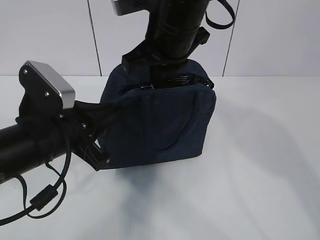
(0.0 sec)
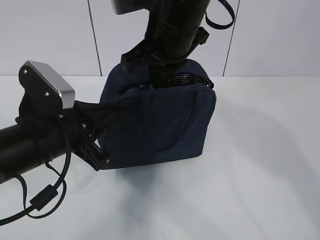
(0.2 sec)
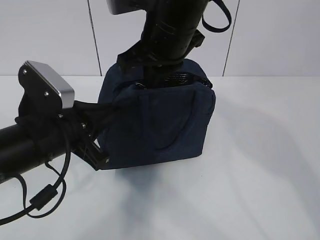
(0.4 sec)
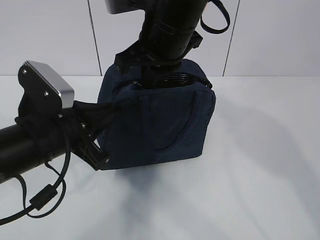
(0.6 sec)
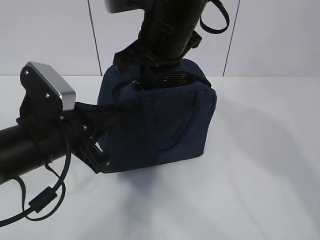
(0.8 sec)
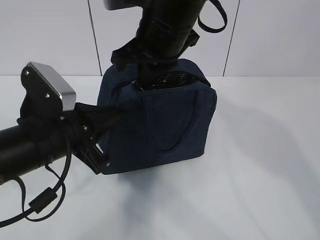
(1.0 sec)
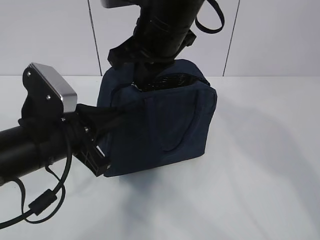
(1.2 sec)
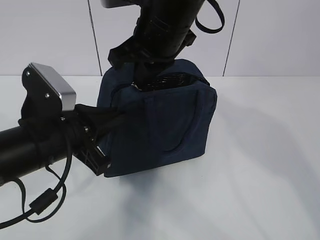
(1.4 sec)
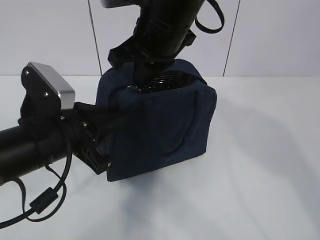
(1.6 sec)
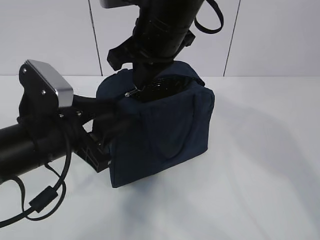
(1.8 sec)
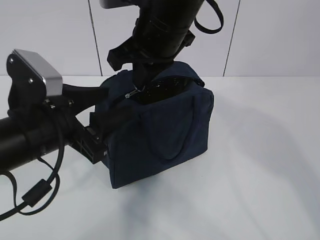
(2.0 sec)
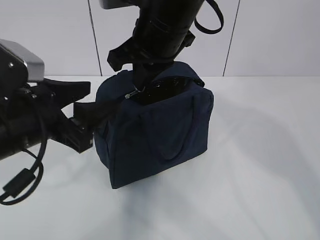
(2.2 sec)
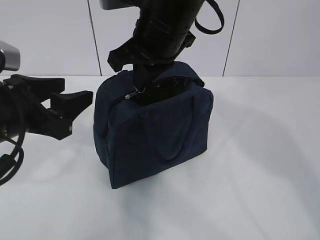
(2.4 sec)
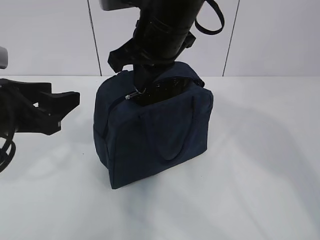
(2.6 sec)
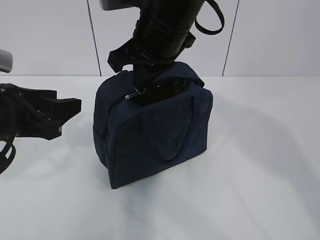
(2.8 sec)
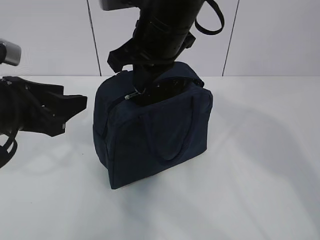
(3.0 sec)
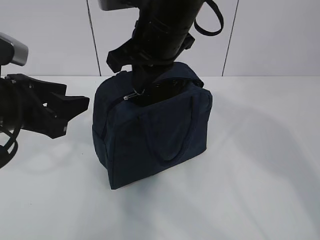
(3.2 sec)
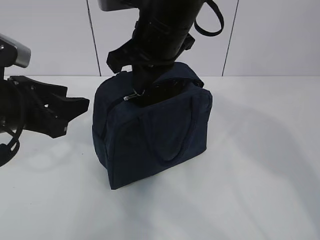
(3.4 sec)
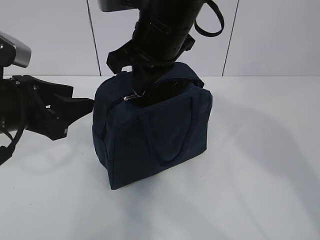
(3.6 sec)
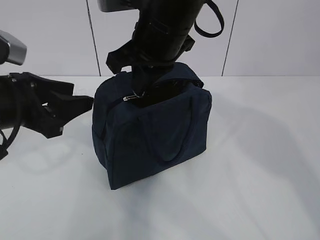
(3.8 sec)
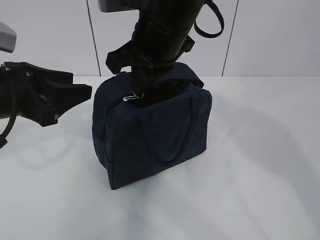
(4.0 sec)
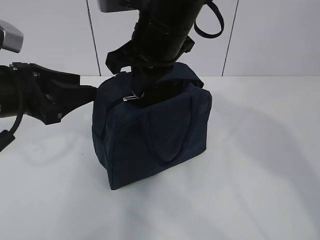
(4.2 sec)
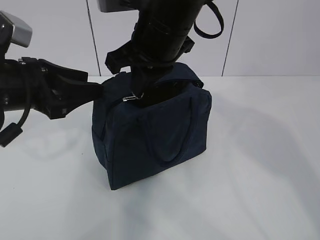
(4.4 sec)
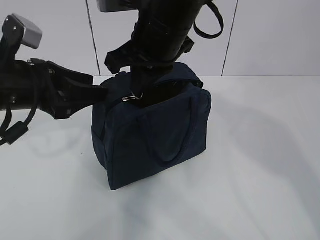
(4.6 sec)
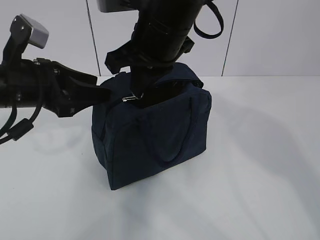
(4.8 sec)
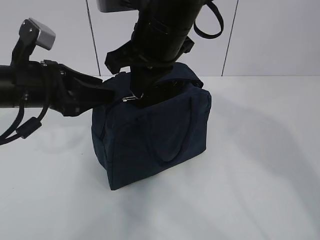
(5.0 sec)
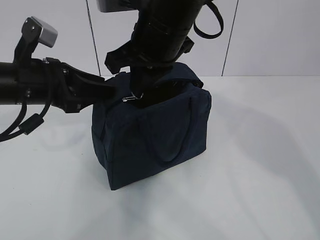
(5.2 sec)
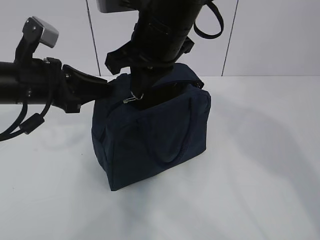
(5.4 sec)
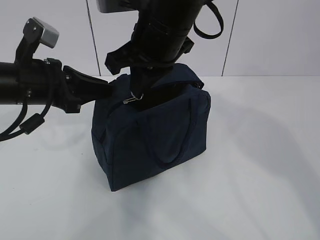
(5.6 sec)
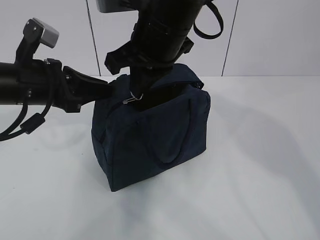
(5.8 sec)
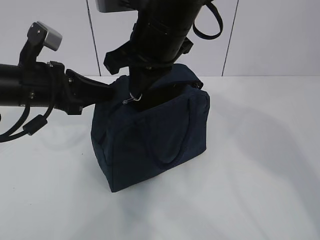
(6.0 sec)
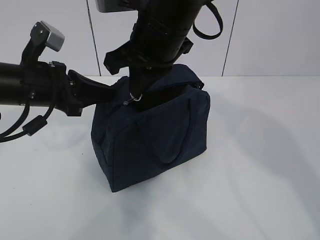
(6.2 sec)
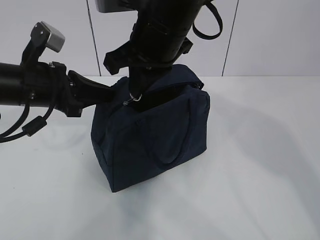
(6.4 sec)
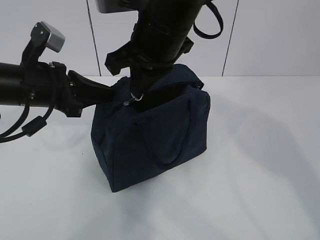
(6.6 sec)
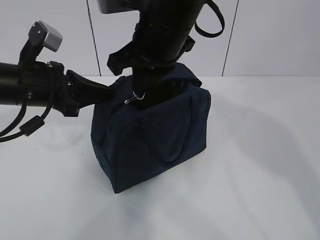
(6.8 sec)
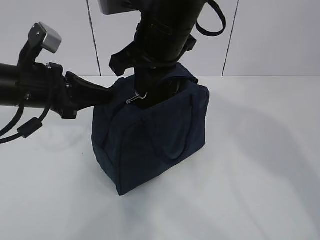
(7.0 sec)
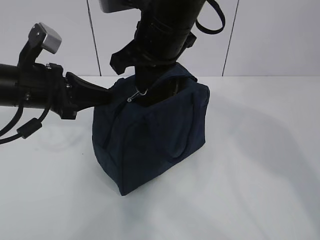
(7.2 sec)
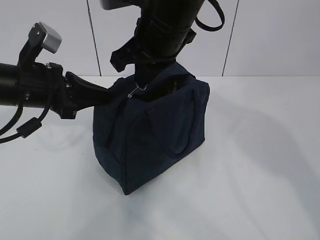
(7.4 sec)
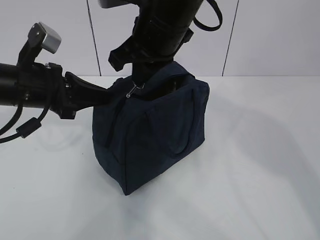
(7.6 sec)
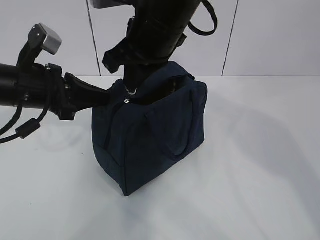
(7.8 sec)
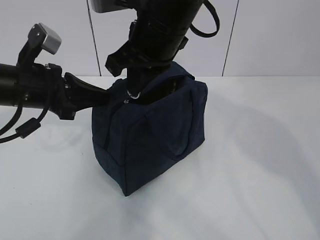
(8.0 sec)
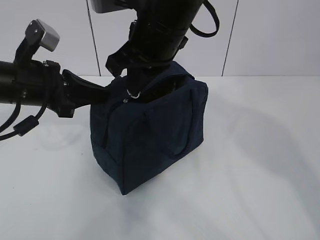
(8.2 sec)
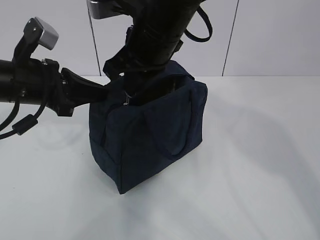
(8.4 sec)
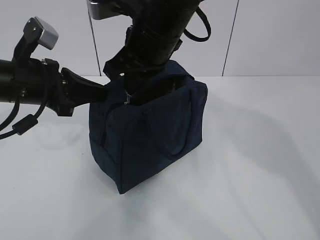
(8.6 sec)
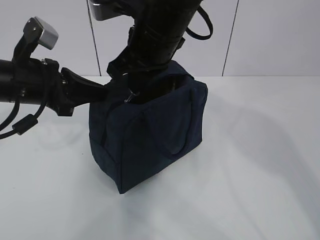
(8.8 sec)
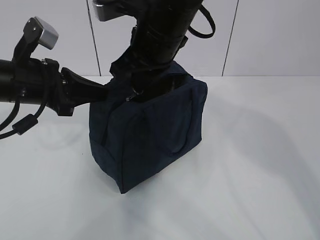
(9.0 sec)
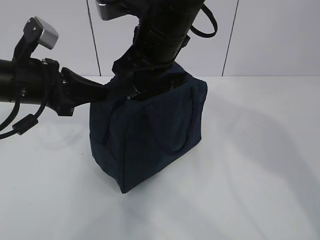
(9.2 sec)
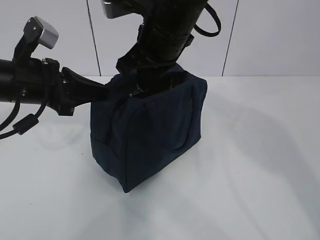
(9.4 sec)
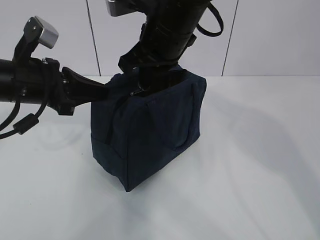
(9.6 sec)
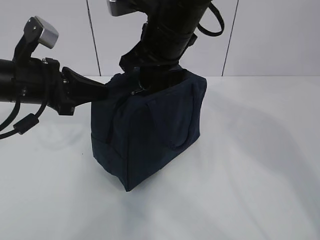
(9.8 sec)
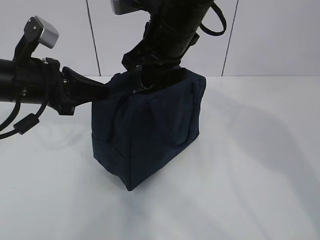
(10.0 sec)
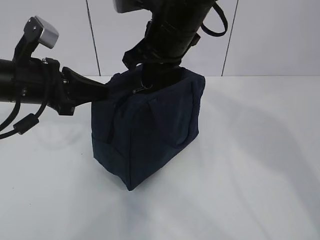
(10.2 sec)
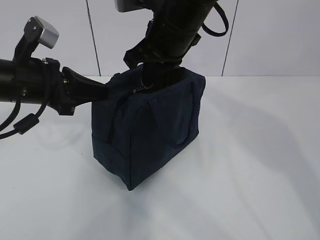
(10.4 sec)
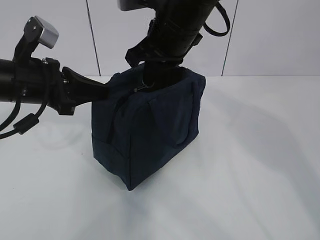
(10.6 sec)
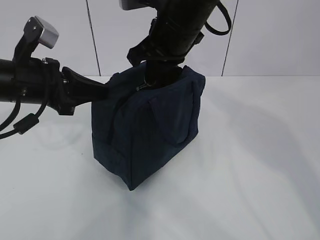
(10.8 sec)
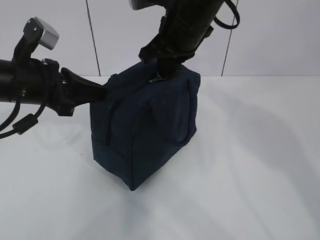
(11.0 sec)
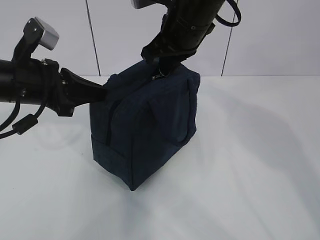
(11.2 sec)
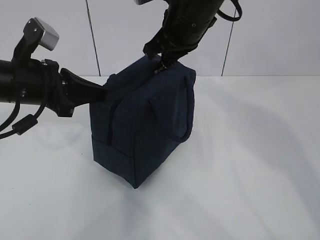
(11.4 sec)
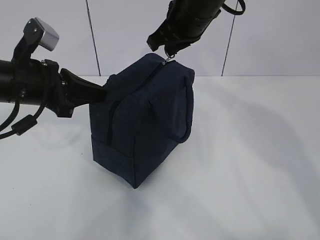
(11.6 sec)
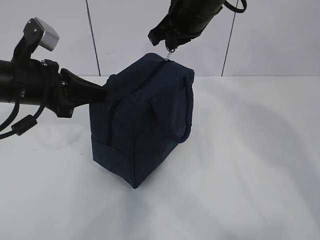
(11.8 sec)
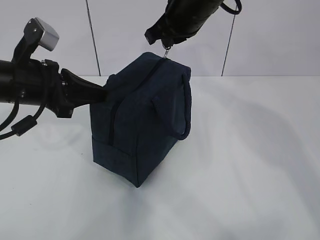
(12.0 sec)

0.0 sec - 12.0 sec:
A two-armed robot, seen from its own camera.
0.0 sec - 1.6 sec: The grippers make only small movements.
1.6 sec - 3.0 sec: The left gripper is displaced to the left by approximately 5 cm, and opens up.
3.0 sec - 4.4 sec: There are only small adjustments of the grippers.
4.4 sec - 6.0 sec: The left gripper closes.
6.0 sec - 10.4 sec: The grippers move only a little.
10.4 sec - 12.0 sec: The right gripper moves about 5 cm.

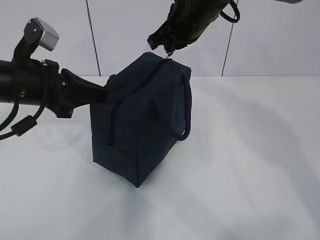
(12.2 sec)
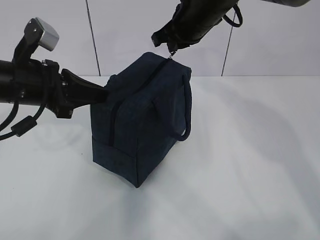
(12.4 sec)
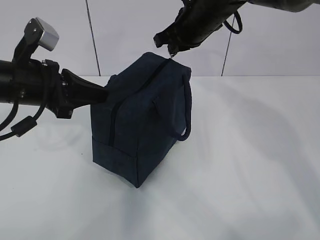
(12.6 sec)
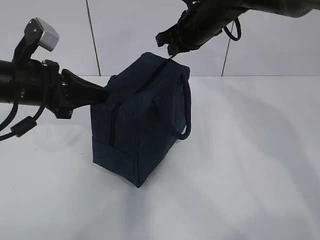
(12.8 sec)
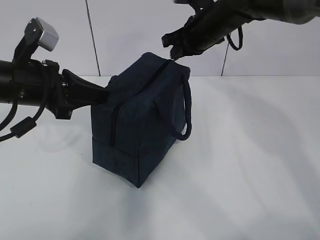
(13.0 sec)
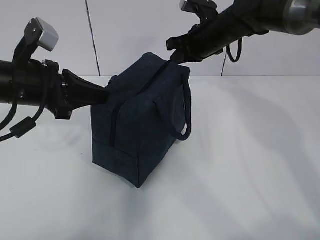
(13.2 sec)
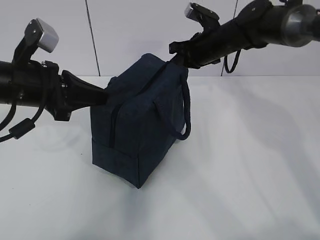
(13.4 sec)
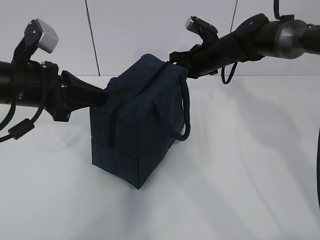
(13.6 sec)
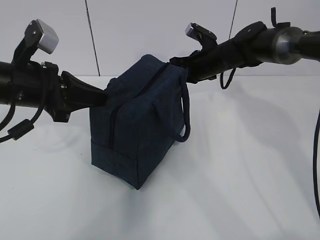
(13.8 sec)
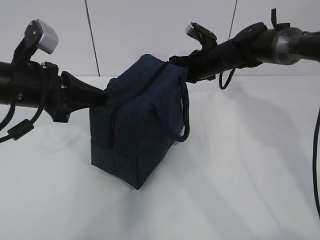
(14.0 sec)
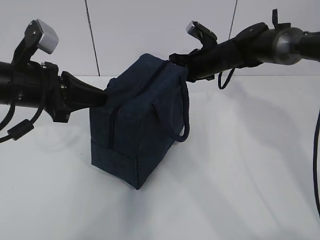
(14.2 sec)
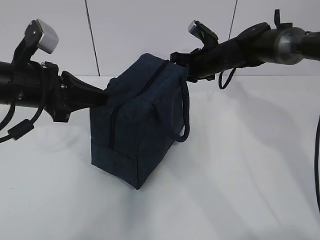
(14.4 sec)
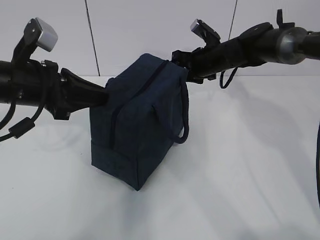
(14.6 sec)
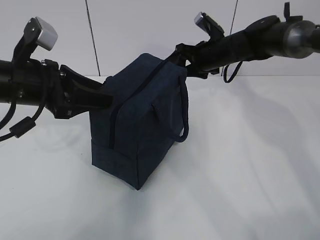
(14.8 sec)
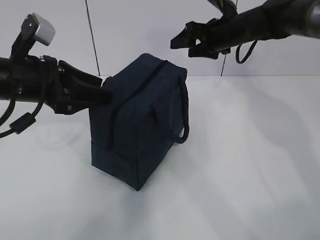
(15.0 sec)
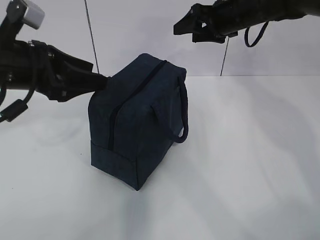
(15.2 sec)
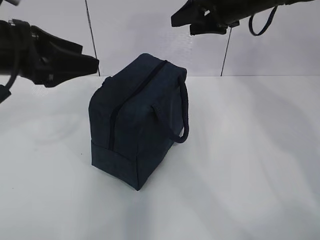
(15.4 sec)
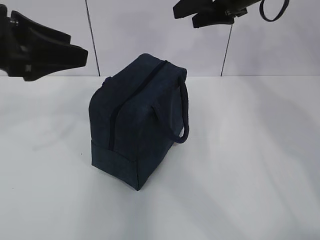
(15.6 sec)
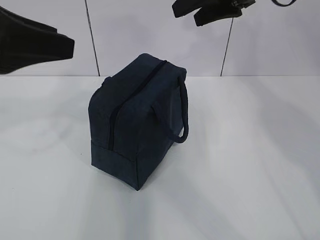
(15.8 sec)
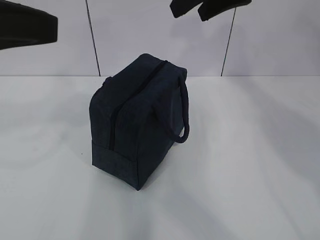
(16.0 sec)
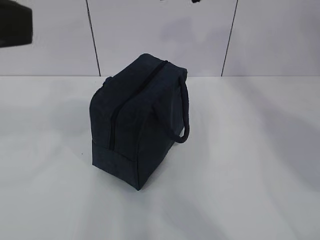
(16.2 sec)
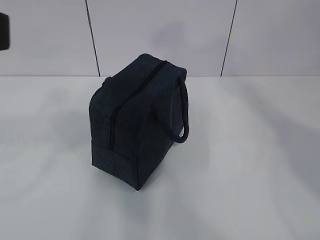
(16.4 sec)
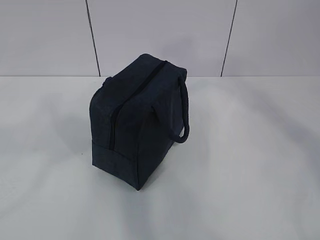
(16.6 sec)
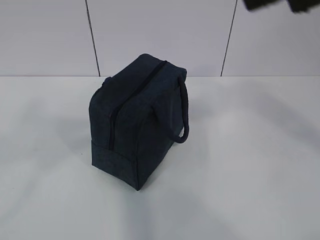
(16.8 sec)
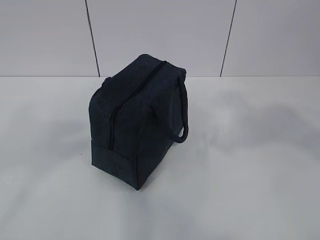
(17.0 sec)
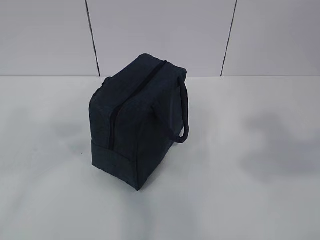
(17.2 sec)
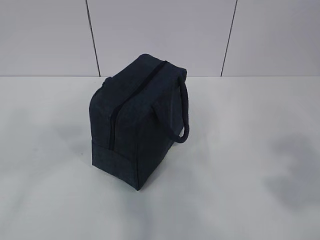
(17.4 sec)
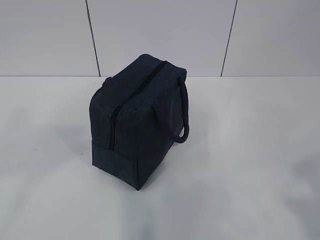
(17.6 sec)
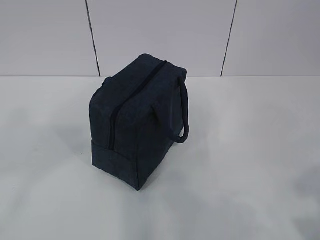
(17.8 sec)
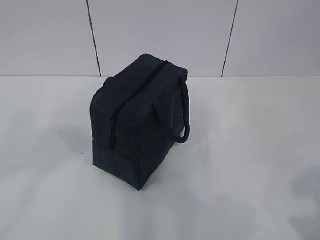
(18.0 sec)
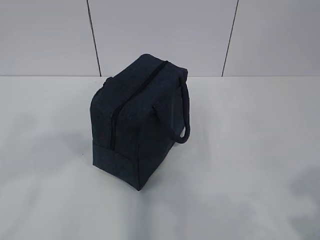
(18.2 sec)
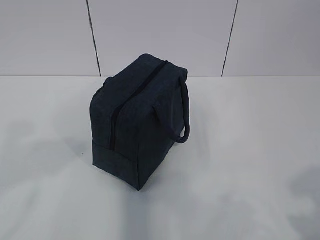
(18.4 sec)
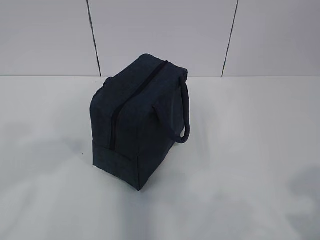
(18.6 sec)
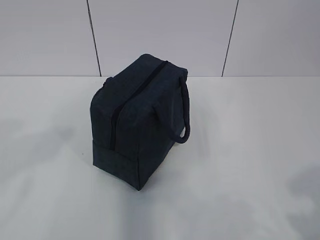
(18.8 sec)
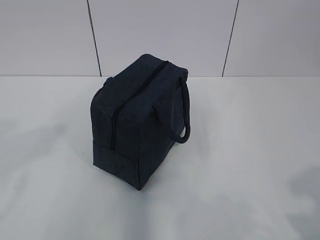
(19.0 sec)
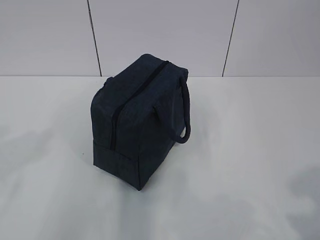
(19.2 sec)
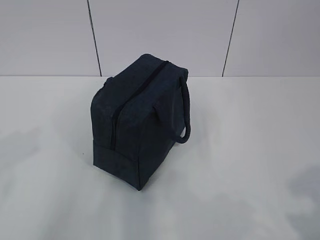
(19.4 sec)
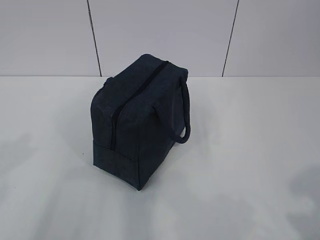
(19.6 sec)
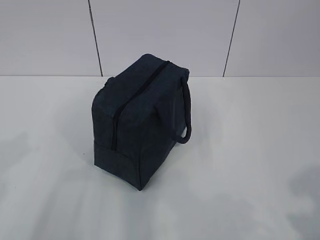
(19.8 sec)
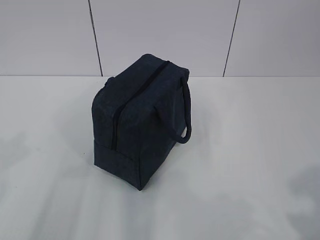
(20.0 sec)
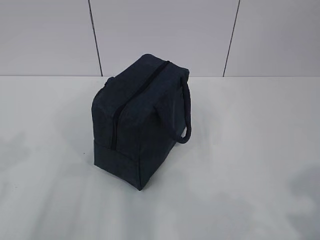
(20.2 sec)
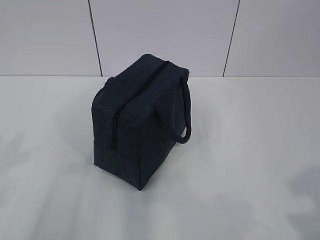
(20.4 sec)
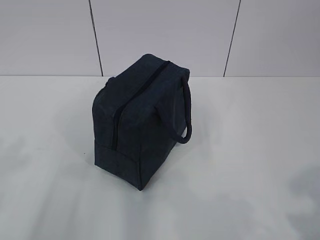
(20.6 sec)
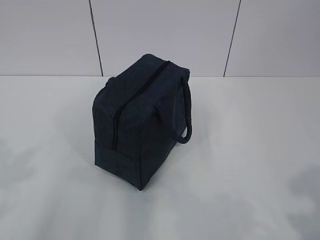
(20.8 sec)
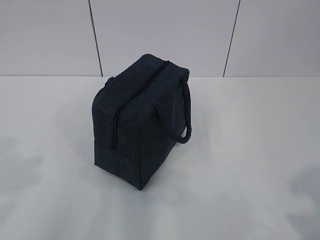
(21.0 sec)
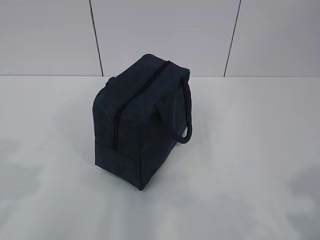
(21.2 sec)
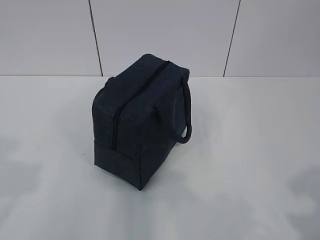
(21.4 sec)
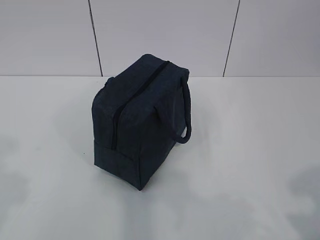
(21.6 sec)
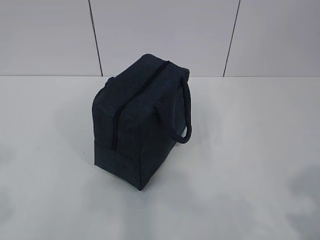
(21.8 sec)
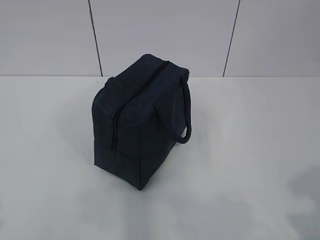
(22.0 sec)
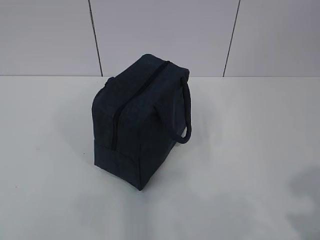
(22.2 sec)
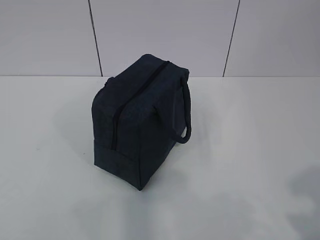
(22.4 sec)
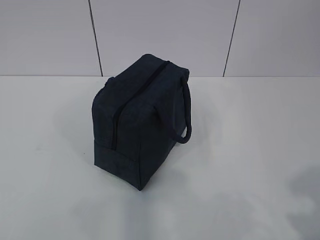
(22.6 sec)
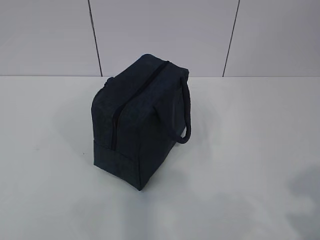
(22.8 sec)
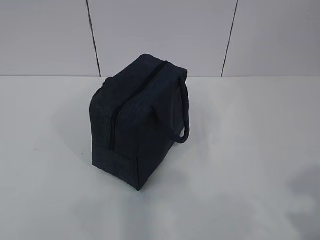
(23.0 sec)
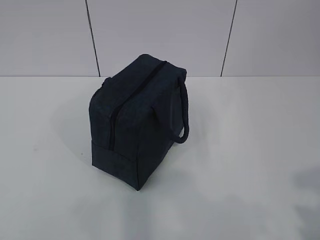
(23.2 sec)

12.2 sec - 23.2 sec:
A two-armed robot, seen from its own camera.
12.2 sec - 13.8 sec: The right gripper moves downward, forward and to the right, about 15 cm.
13.8 sec - 15.4 sec: The right gripper is displaced upward by roughly 15 cm, and opens up, while the left gripper is displaced upward by approximately 5 cm, and opens.
15.4 sec - 17.0 sec: The right gripper travels backward by approximately 35 cm. The left gripper travels backward and upward by about 30 cm.
17.0 sec - 18.4 sec: The right gripper moves downward, to the right and backward, some 20 cm. The left gripper goes approximately 10 cm downward.
18.4 sec - 20.0 sec: The left gripper travels downward and to the left by approximately 10 cm.
21.6 sec - 23.2 sec: The left gripper is displaced backward by roughly 10 cm.
